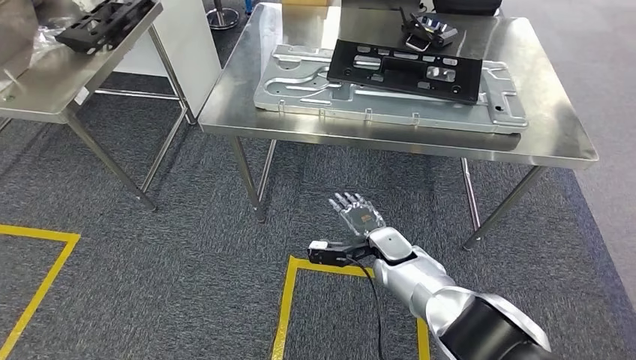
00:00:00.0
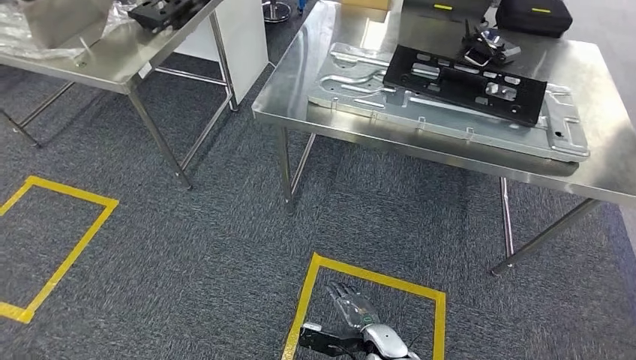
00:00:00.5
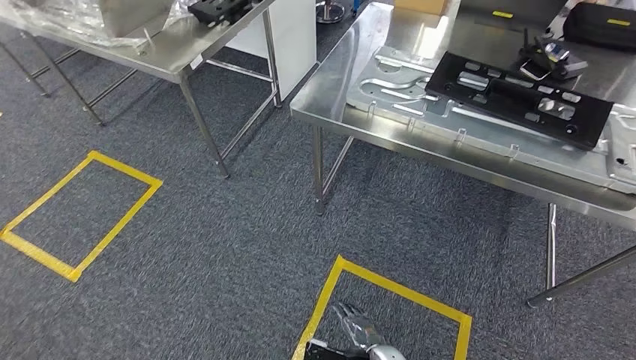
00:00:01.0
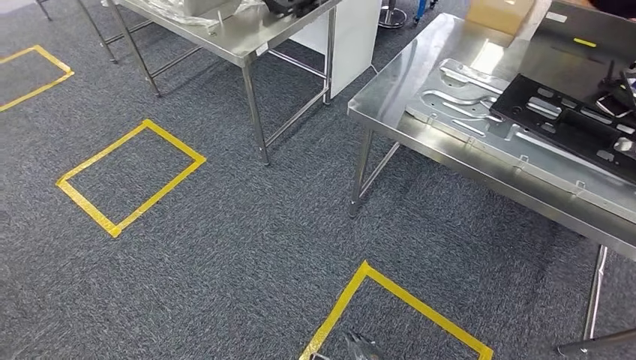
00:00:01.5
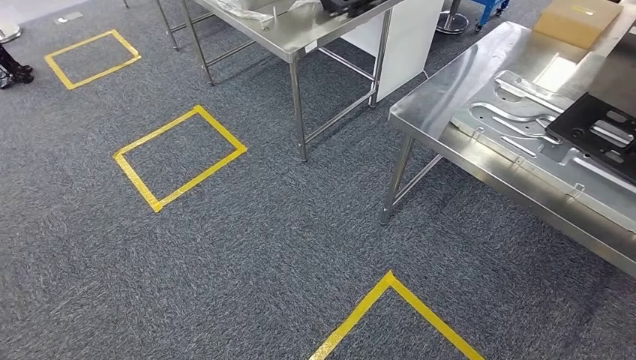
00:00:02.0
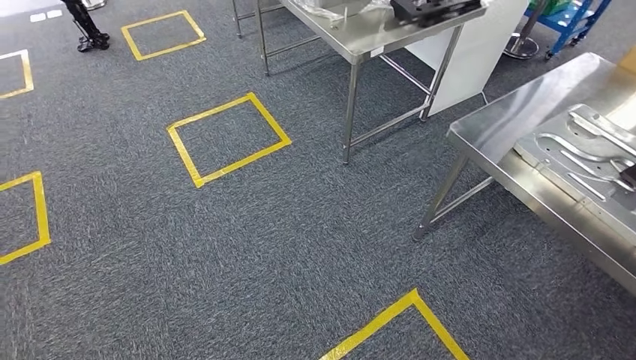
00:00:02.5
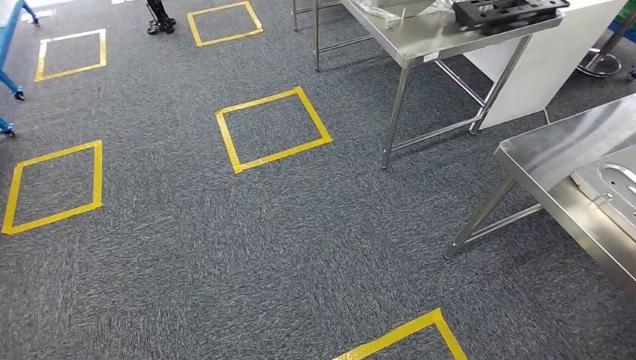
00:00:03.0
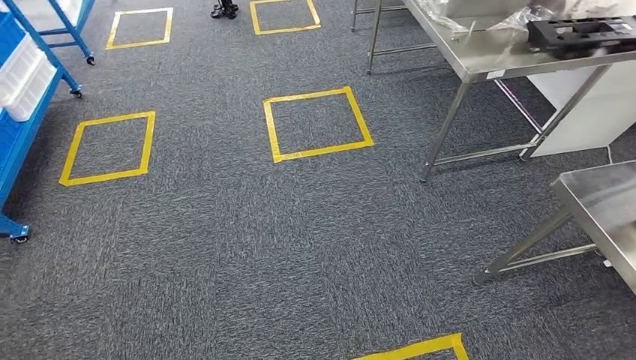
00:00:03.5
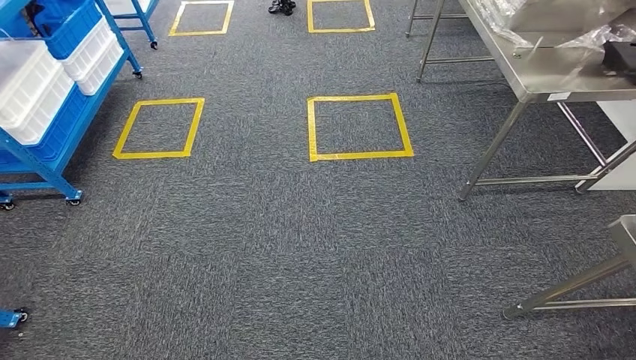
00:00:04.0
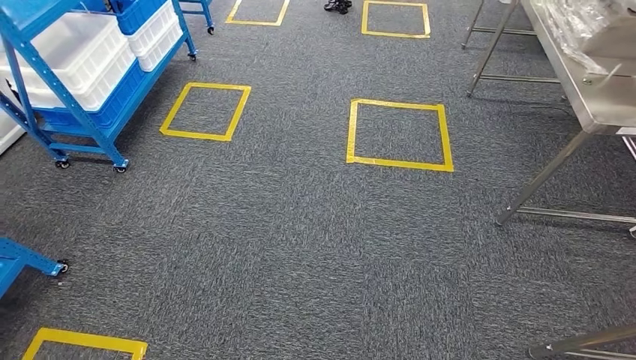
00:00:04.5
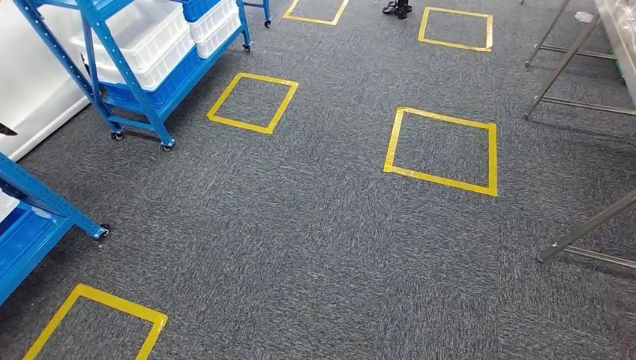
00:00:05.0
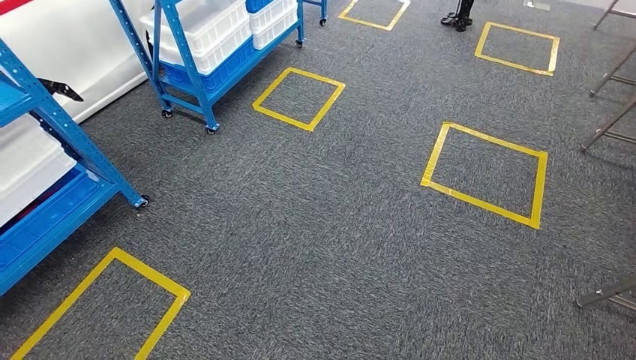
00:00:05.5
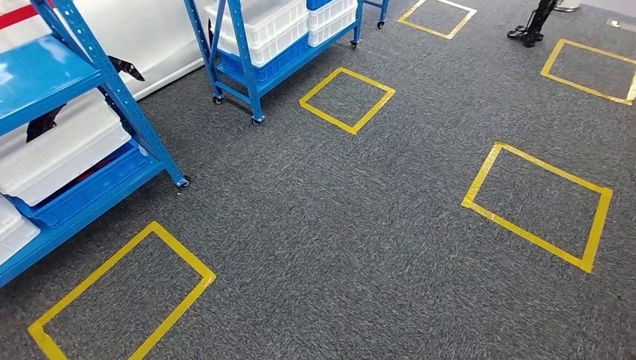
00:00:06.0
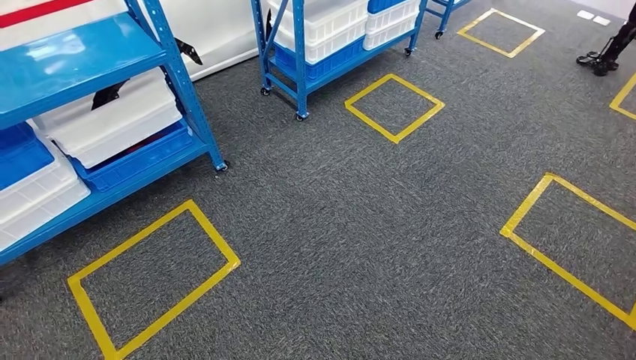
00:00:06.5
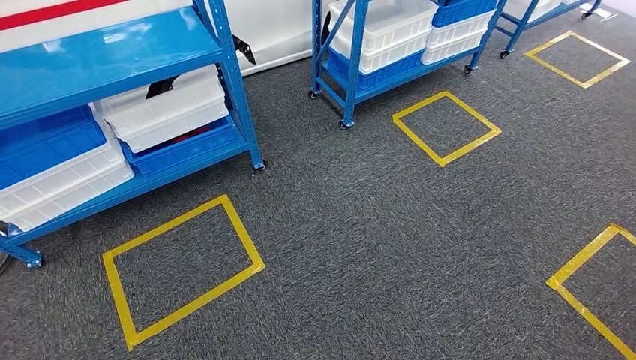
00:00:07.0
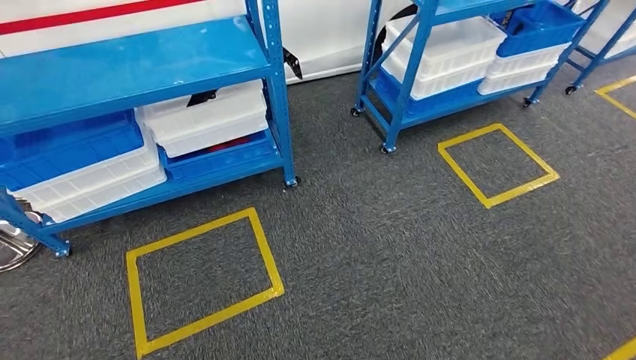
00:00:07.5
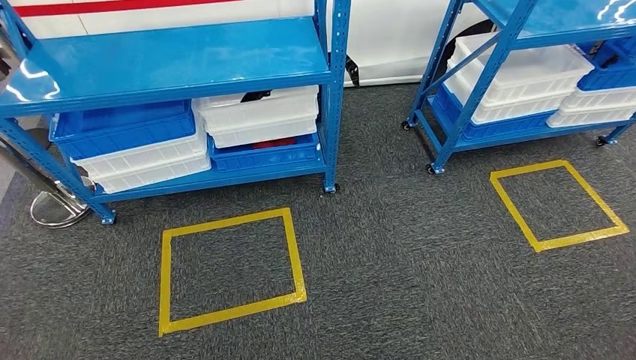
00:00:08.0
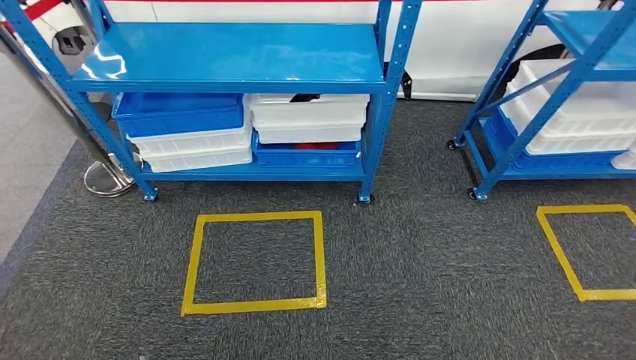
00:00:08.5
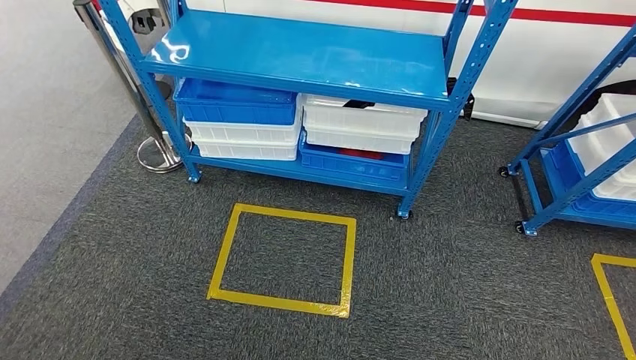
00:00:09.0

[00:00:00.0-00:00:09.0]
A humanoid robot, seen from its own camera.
Step, 00:00:00.0 to 00:00:09.0: Move to the initial position of the shelf.
